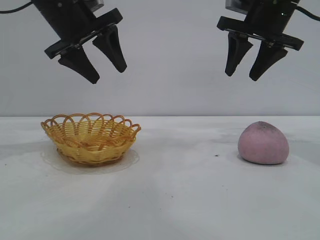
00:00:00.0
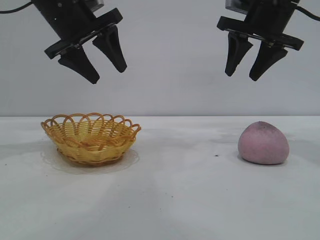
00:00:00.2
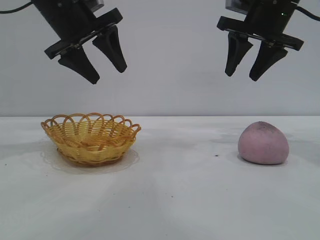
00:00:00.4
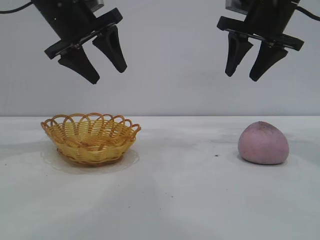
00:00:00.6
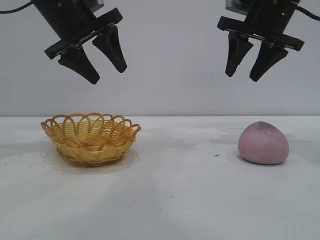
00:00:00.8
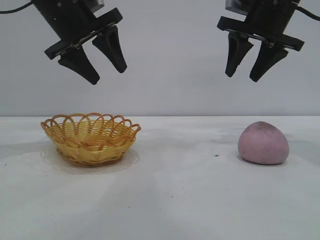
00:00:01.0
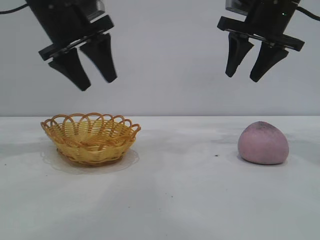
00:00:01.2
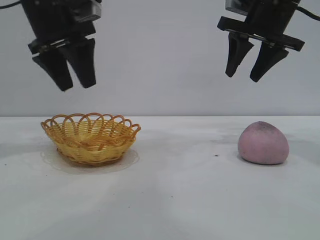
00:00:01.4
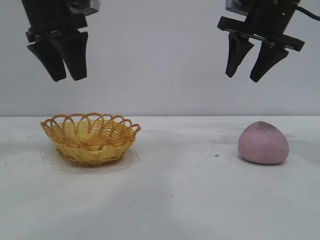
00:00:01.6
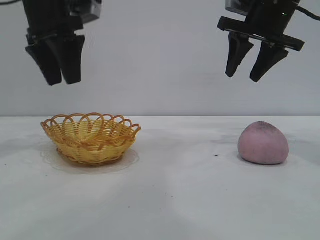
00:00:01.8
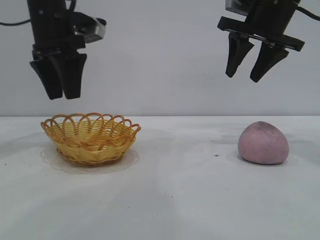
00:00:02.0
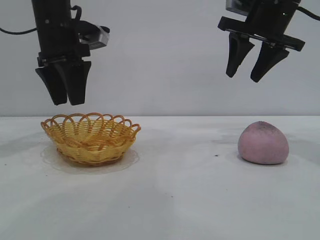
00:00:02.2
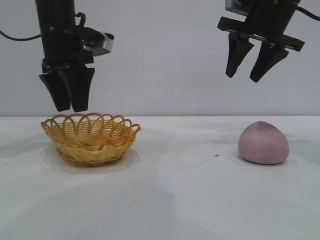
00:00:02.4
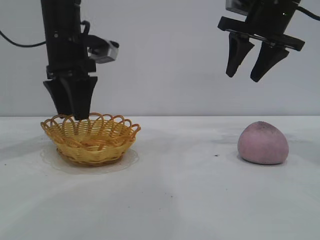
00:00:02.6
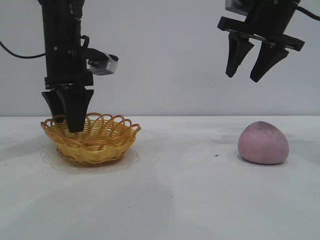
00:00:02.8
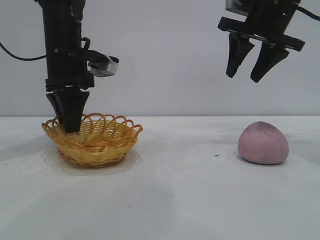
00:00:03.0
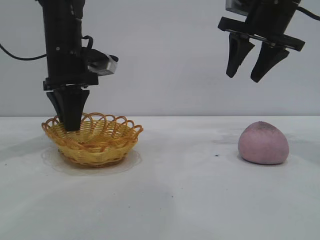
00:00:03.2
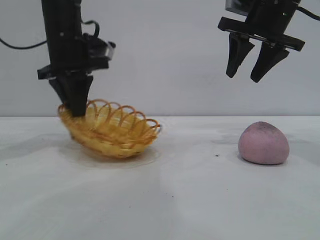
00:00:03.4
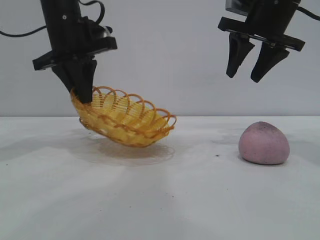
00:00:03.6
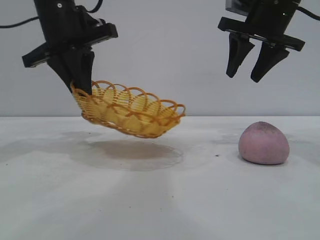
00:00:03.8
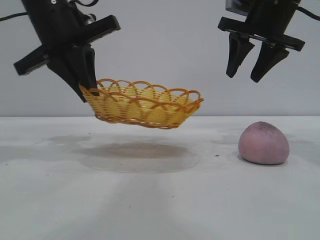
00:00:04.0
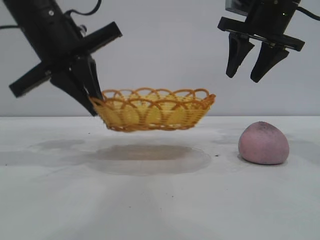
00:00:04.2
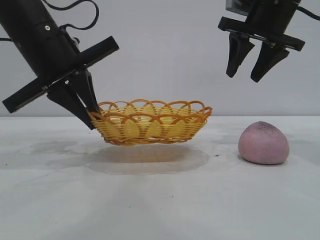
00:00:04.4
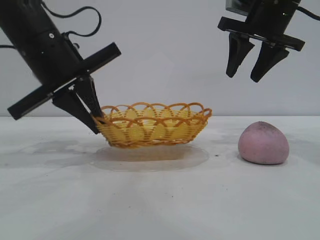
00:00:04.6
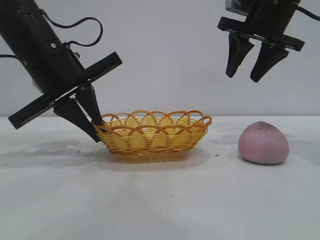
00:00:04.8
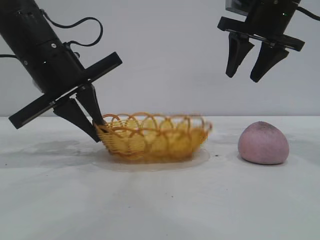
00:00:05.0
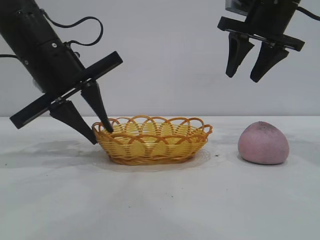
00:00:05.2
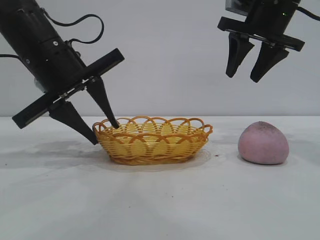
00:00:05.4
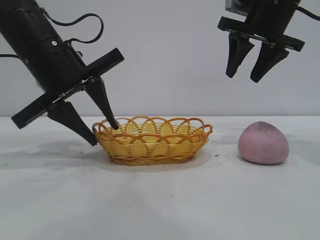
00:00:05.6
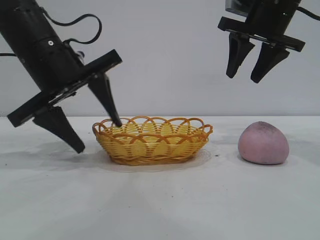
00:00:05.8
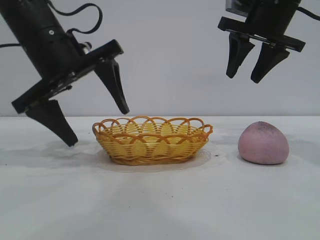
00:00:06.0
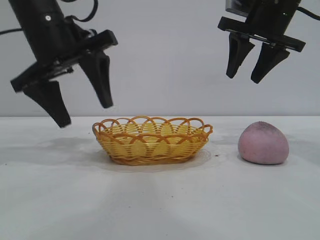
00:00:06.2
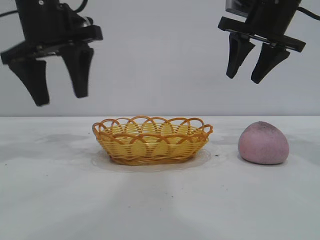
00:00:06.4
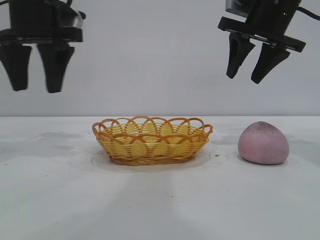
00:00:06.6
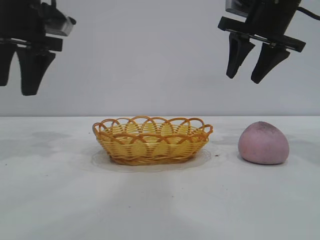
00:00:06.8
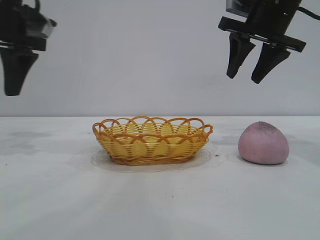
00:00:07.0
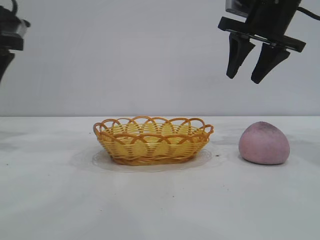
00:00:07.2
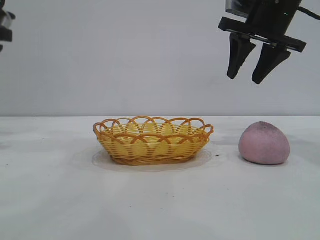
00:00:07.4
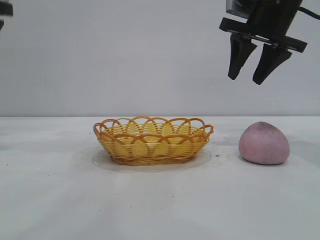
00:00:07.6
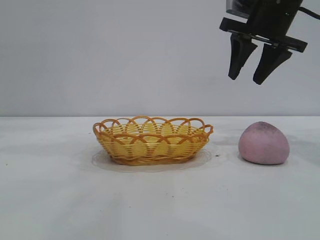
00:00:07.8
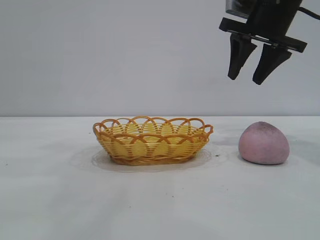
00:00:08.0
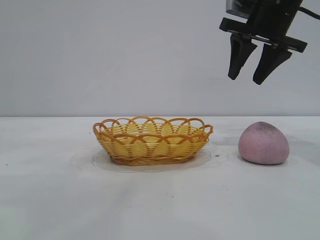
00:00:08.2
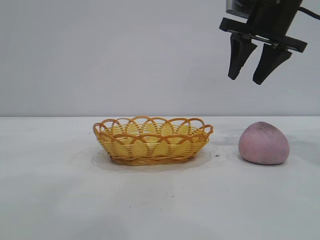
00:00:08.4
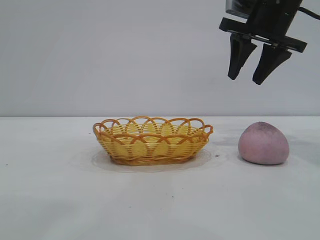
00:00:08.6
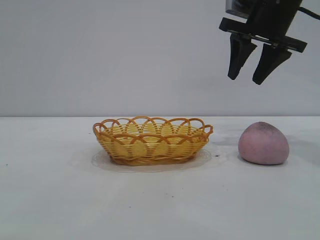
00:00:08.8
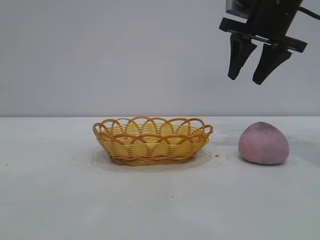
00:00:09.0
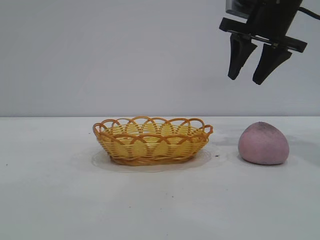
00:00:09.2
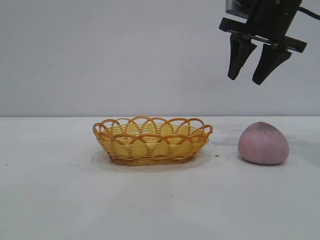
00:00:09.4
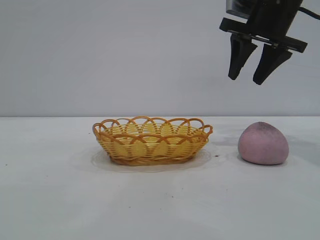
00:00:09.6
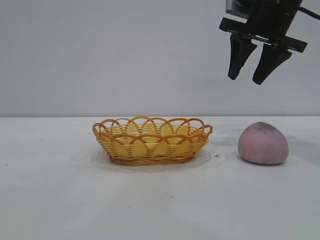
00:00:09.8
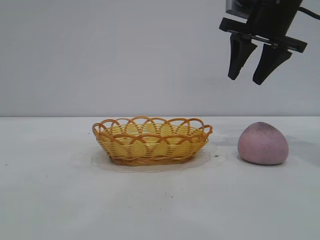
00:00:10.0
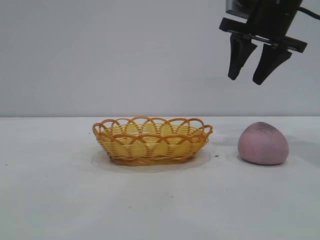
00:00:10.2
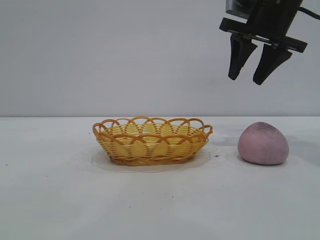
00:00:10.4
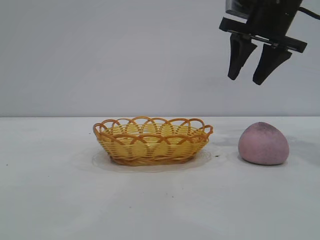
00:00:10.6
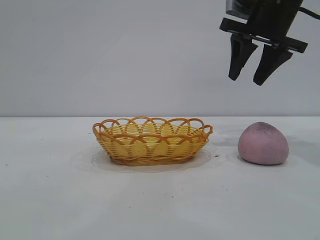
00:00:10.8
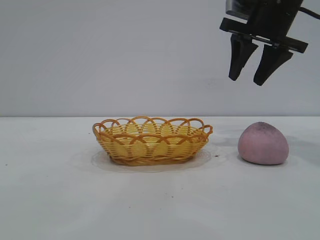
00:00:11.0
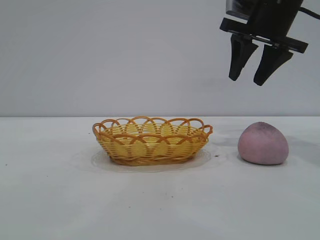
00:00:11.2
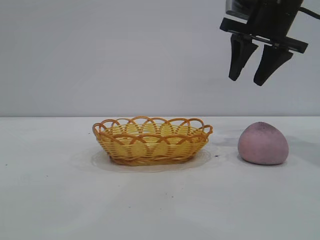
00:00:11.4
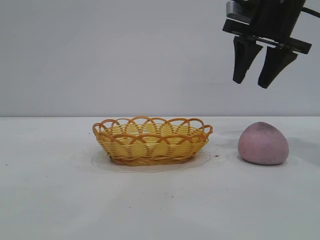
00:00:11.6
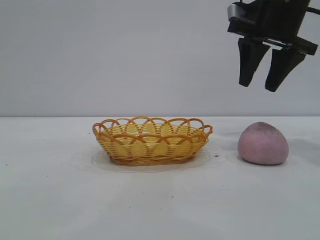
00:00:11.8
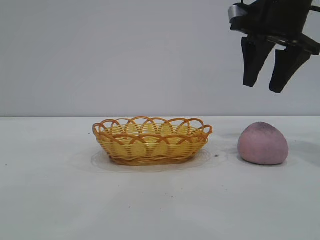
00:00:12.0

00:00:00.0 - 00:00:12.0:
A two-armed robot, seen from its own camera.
Task of the whole recording: pick up the peach and put it into the basket.
Step, 00:00:00.0 - 00:00:05.8: Move the basket to the center of view.

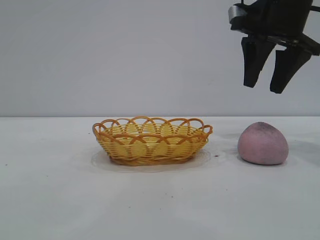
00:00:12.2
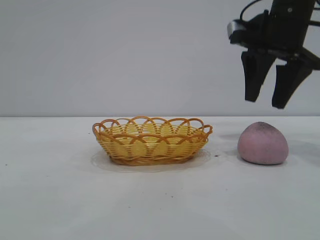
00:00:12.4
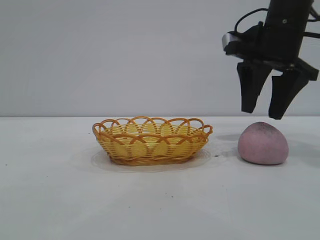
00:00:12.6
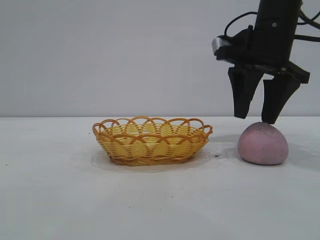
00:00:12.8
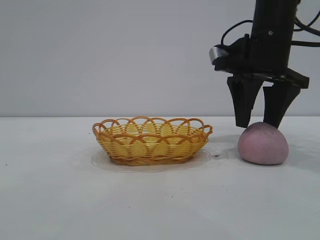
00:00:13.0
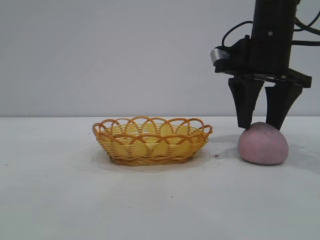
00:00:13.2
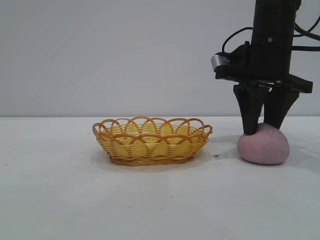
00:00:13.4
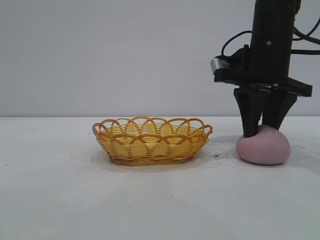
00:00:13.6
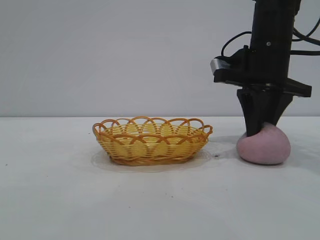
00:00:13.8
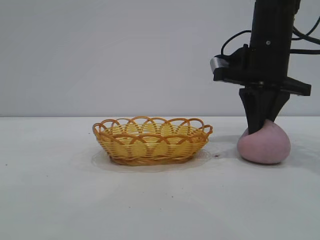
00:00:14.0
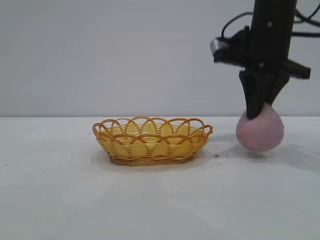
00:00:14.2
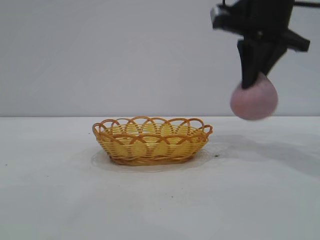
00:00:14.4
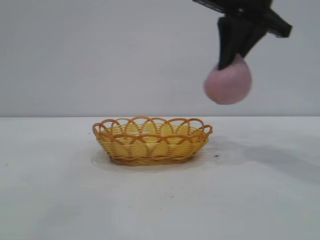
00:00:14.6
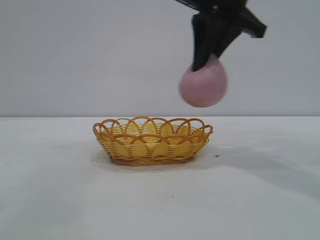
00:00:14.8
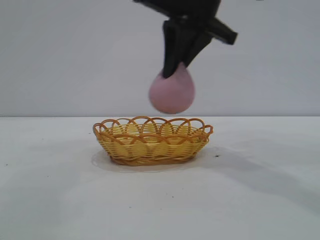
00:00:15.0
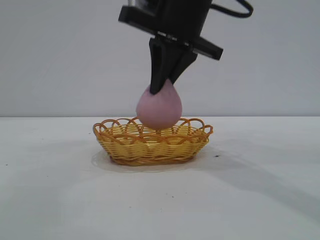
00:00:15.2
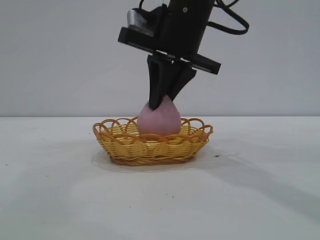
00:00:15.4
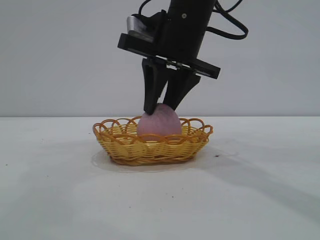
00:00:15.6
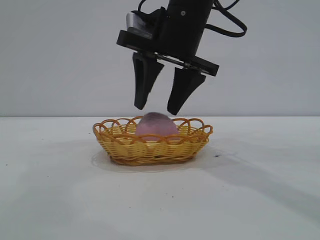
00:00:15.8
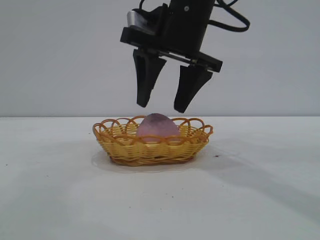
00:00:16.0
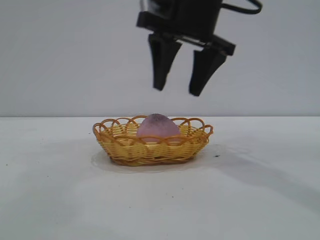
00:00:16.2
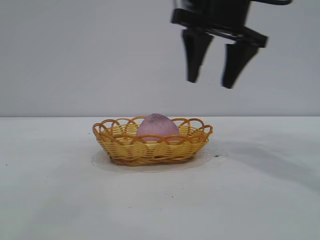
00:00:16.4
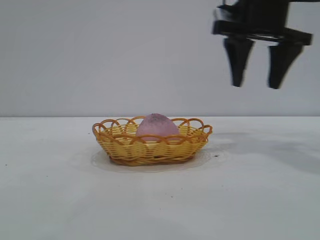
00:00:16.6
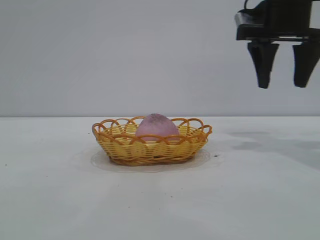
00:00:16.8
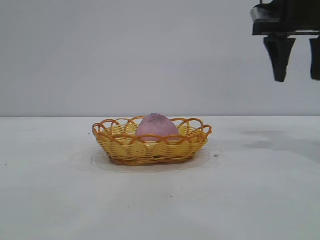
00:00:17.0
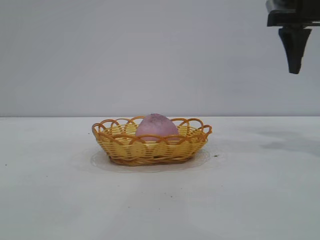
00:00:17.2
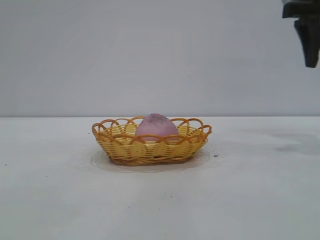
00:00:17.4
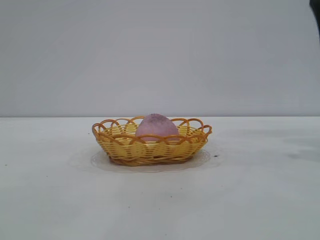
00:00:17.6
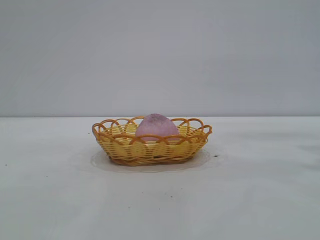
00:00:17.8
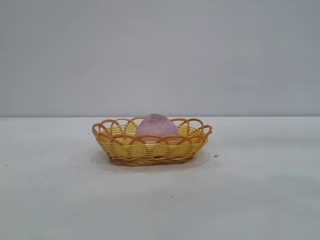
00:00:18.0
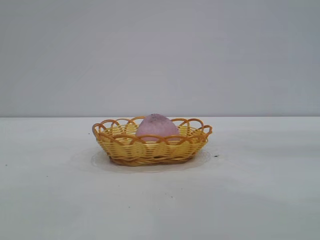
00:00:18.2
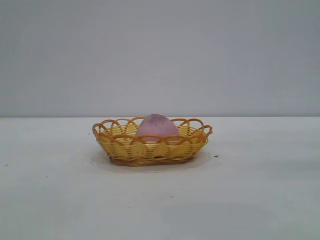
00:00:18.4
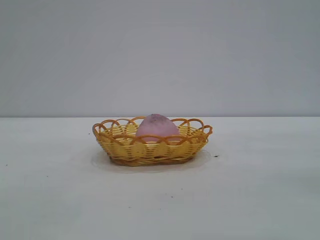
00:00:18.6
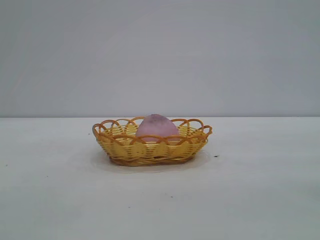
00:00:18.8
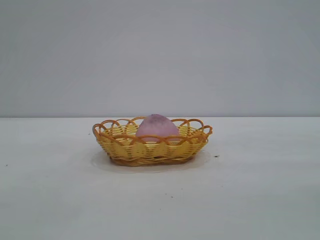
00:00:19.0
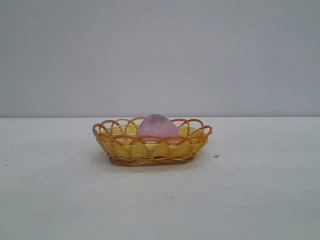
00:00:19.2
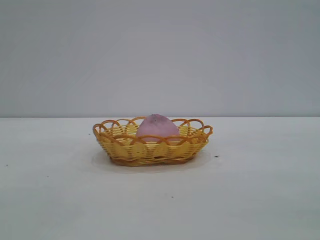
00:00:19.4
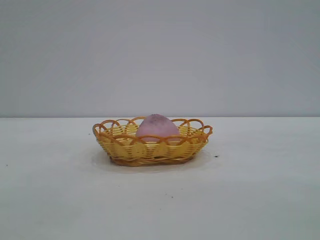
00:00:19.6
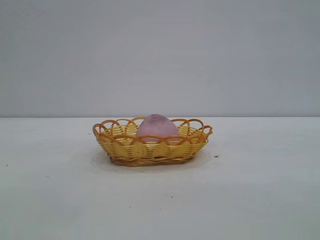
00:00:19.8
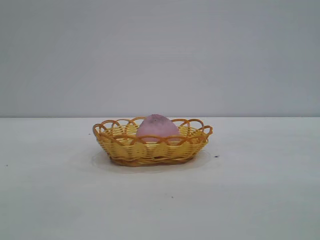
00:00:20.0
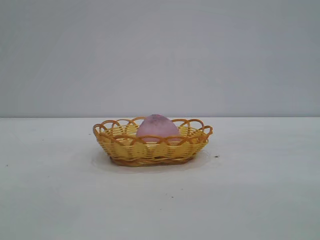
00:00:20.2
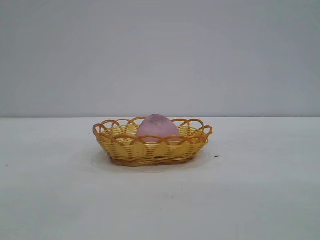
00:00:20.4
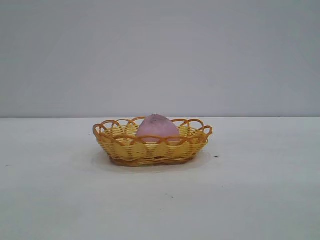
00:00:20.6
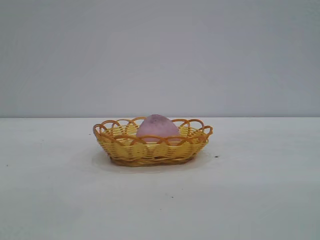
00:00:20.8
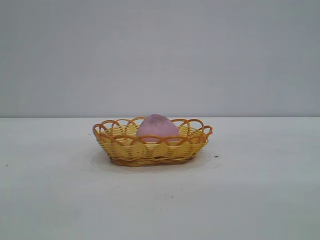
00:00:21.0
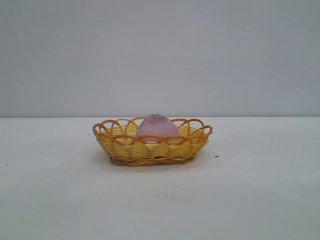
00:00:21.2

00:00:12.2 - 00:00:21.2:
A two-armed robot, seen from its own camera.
Task of the whole recording: pick up the peach and put it into the basket.
Step, 00:00:12.2 - 00:00:14.2: Pick up the peach.
Step, 00:00:14.4 - 00:00:16.0: place the peach into the basket.

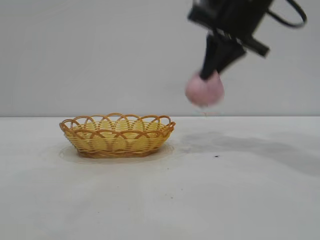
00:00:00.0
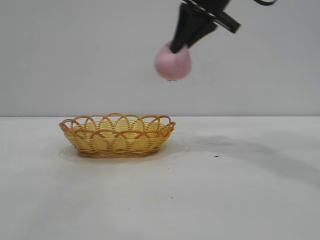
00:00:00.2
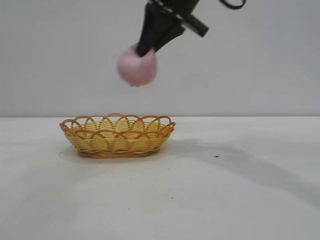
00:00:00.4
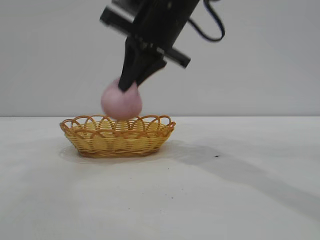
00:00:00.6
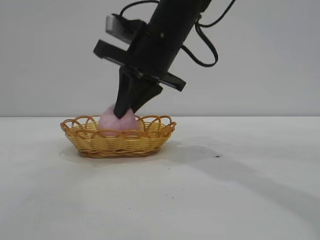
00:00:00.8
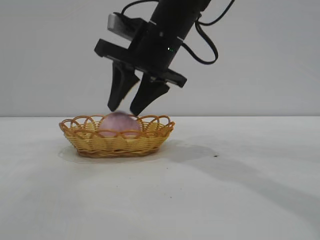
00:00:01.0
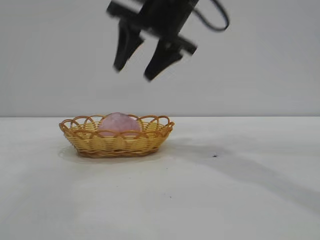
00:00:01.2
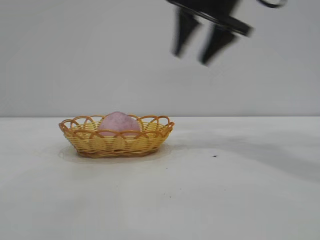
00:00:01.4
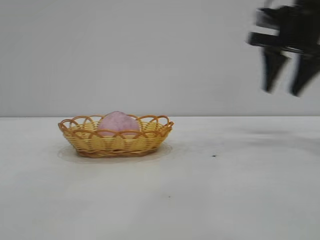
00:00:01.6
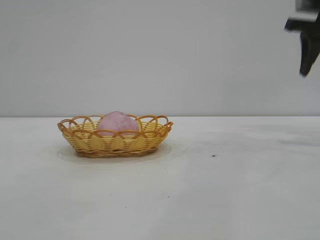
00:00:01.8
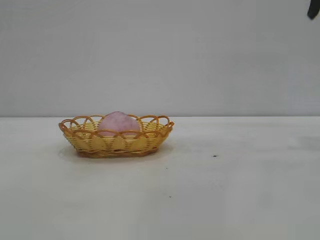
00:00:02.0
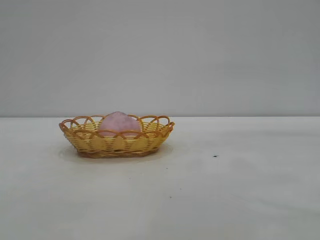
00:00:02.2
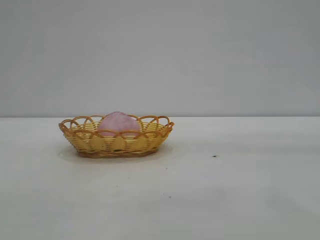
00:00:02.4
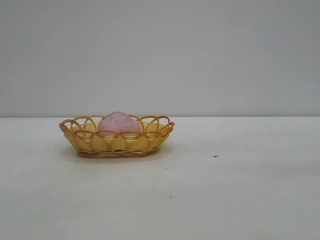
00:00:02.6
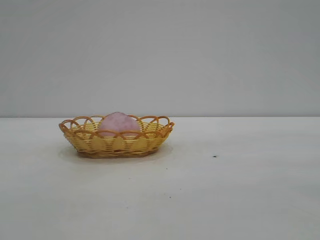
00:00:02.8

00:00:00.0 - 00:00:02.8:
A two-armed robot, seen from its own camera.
Task of the whole recording: pick up the peach and put it into the basket.
Step, 00:00:00.0 - 00:00:01.2: place the peach into the basket.
